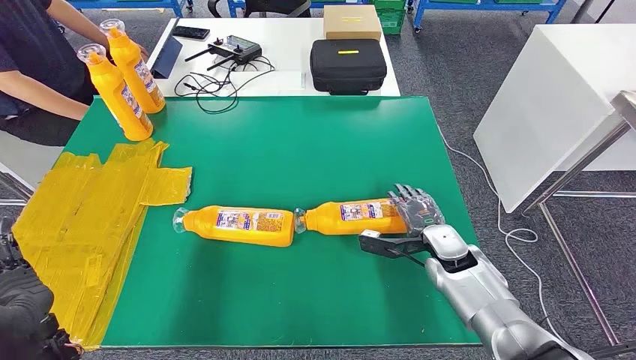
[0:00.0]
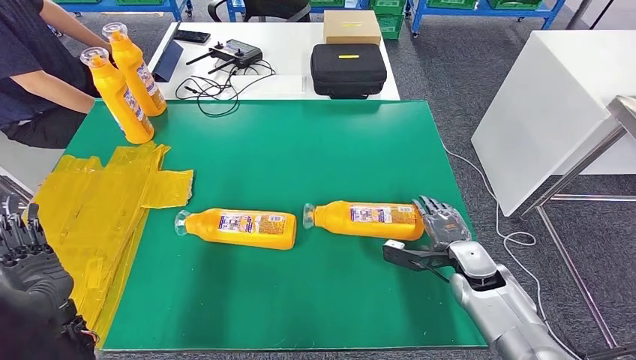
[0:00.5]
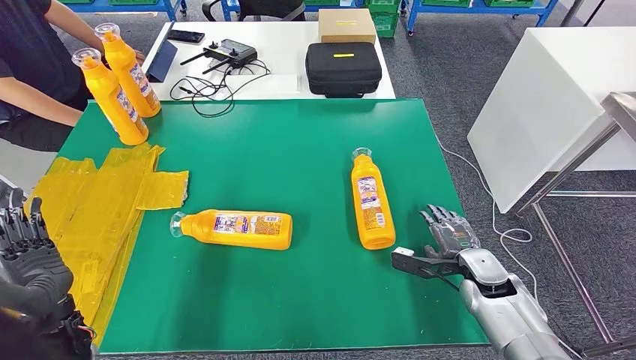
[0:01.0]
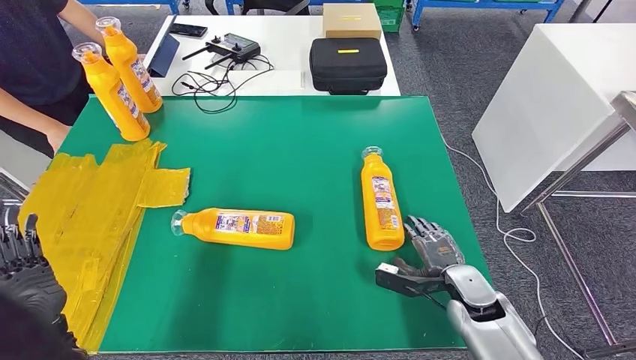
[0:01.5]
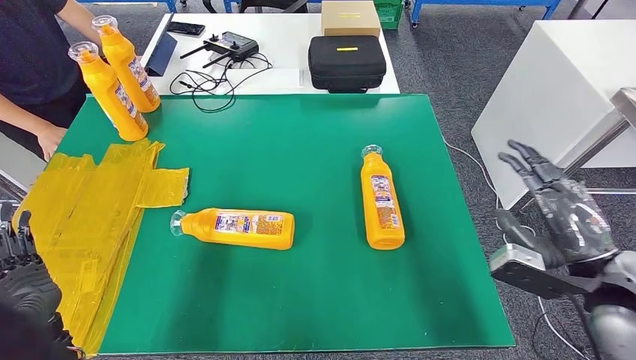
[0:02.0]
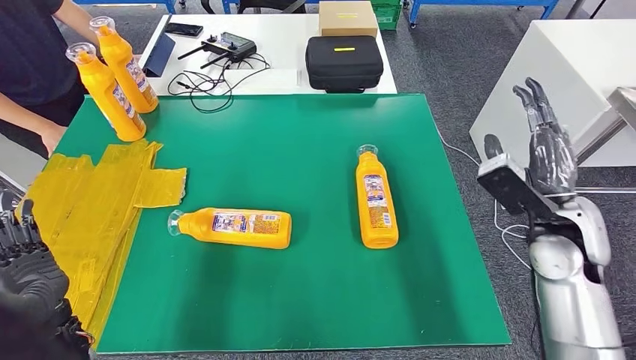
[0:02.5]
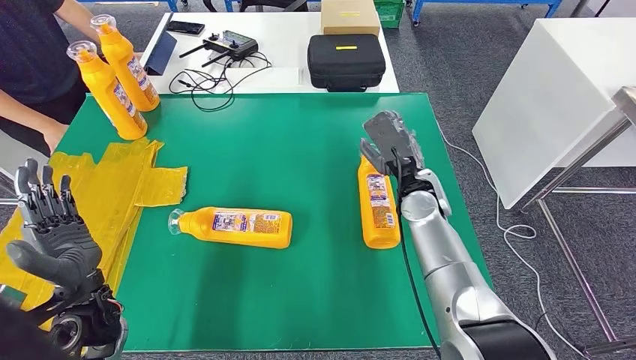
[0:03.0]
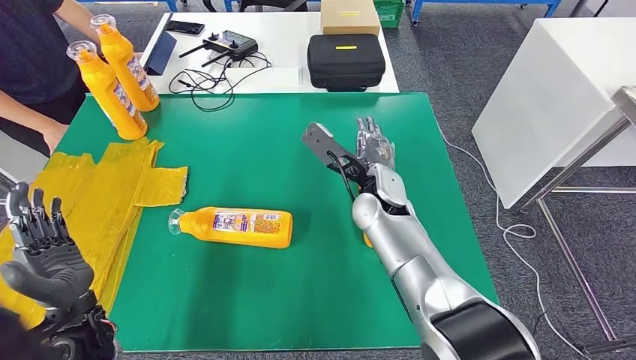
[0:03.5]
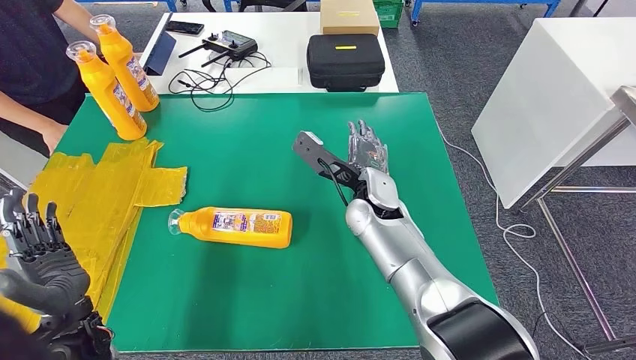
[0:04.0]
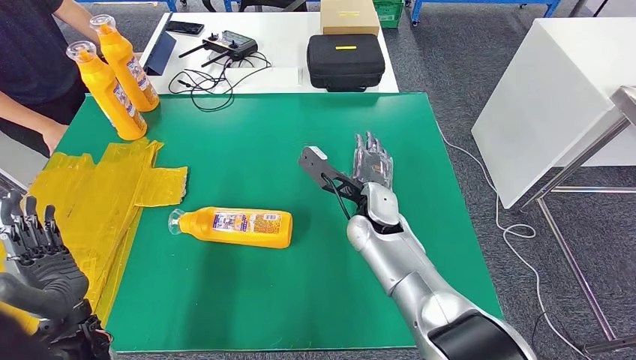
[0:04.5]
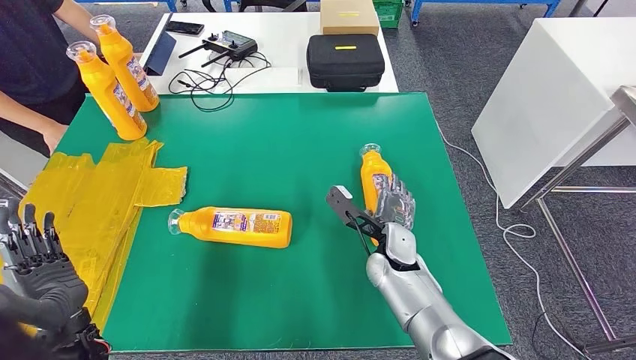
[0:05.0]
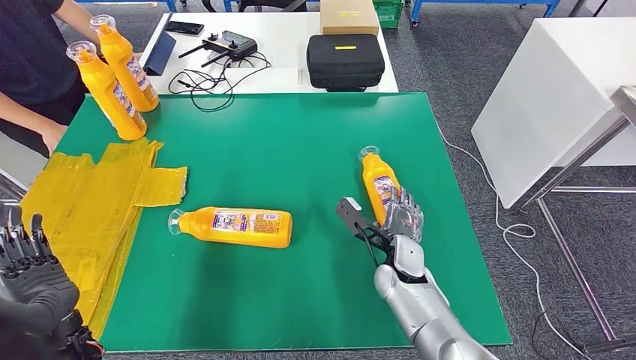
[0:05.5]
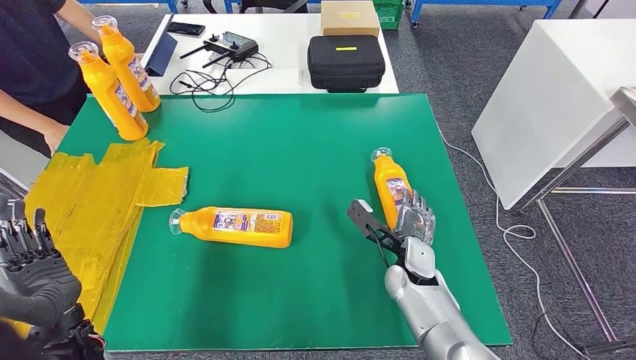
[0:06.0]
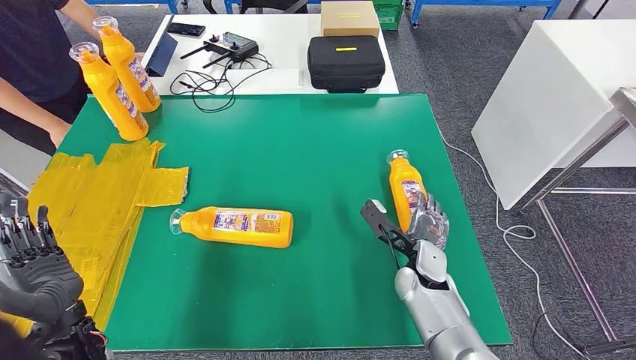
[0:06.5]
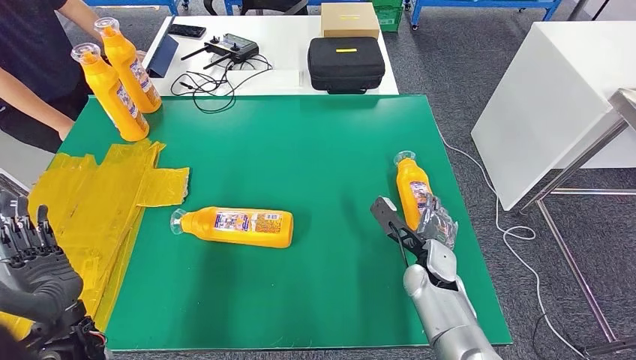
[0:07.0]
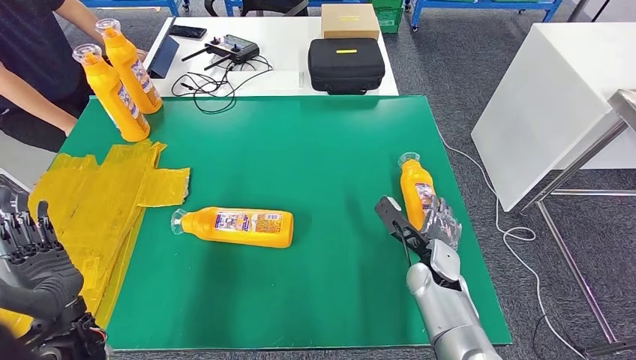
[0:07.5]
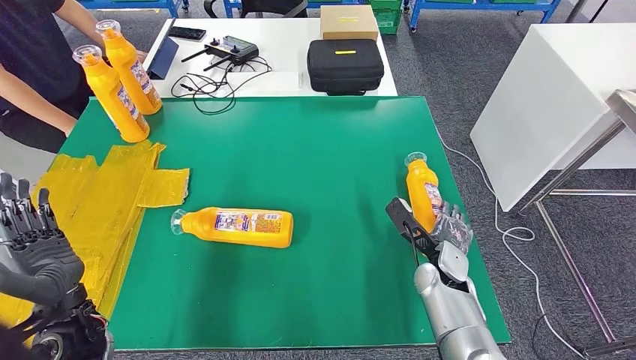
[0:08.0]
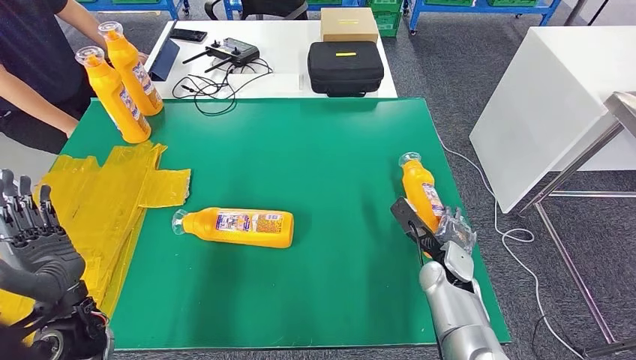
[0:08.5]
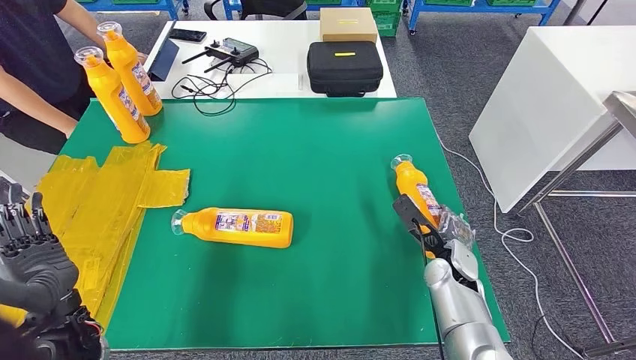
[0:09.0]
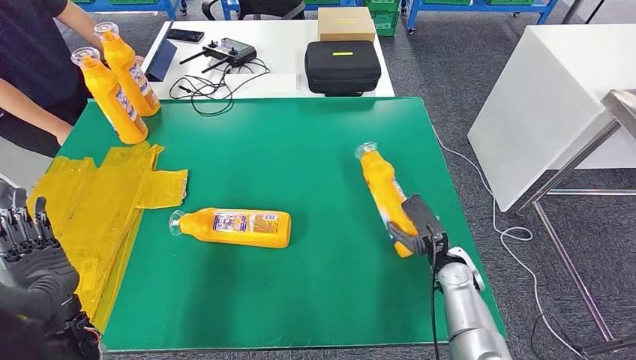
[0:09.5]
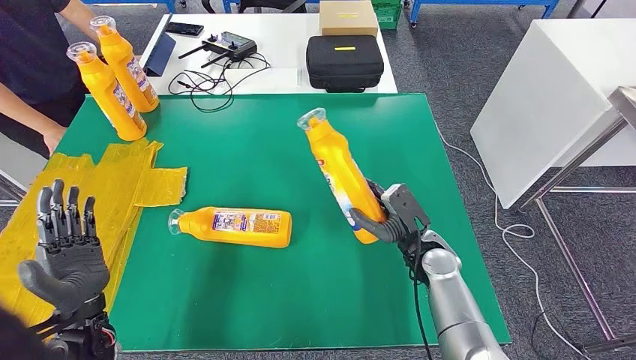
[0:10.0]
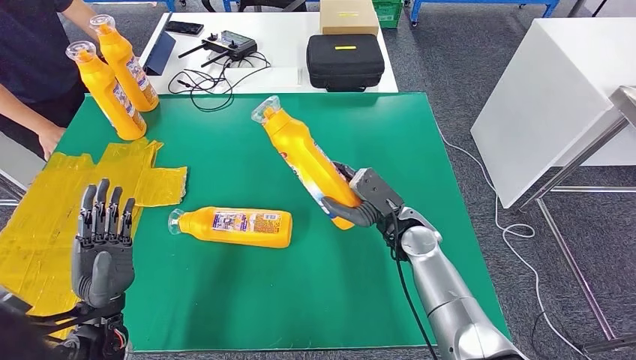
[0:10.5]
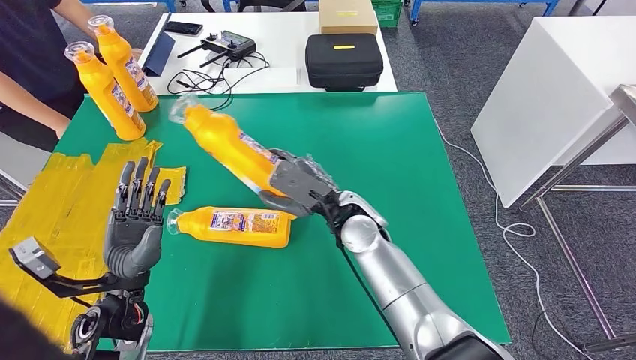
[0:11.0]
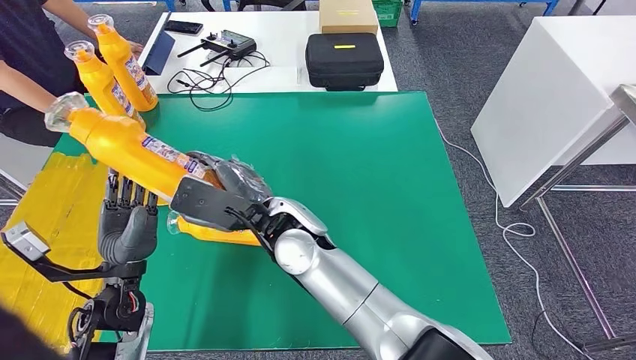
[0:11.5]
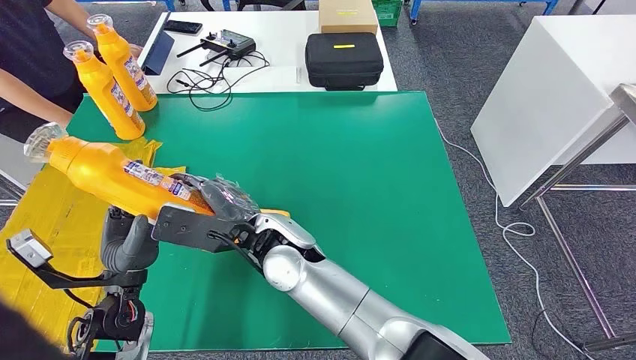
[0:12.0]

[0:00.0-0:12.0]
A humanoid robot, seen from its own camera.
Step, 0:07.5 to 0:10.5: Pick up the bottle from the table.
0:04.0 to 0:06.0: The right hand heads downward, backward and to the right, covering roughly 20 cm.

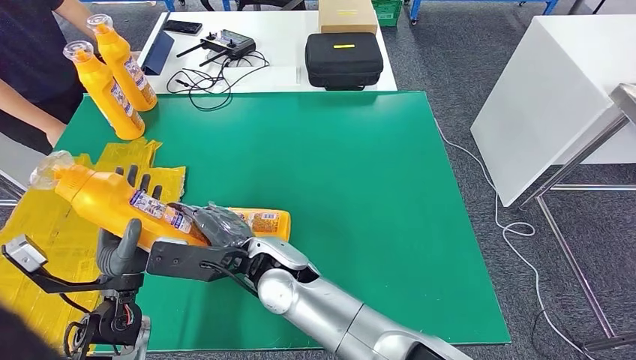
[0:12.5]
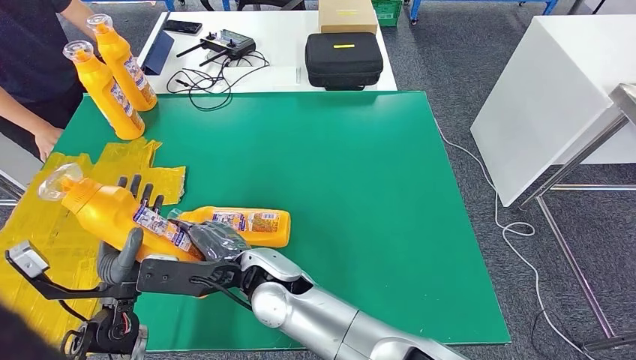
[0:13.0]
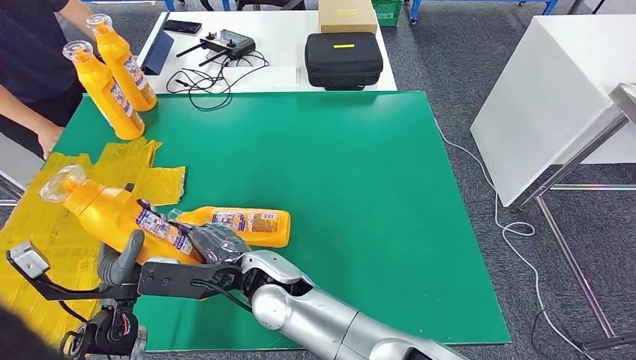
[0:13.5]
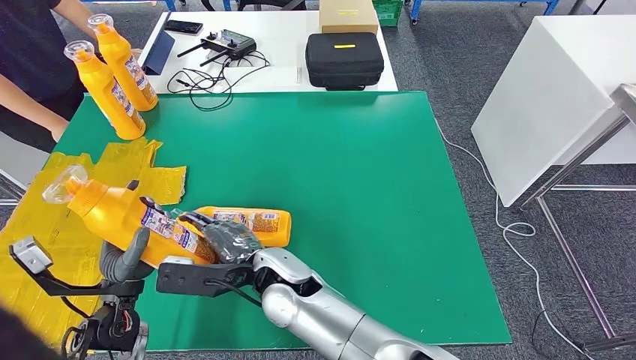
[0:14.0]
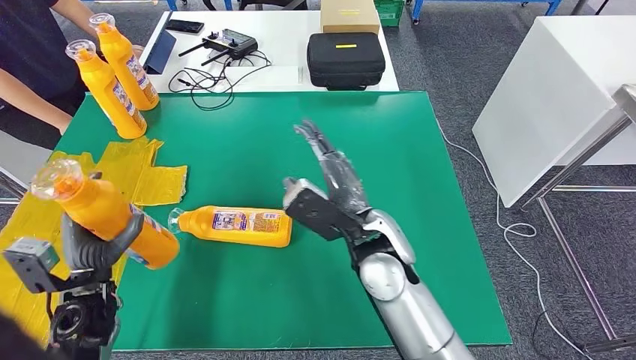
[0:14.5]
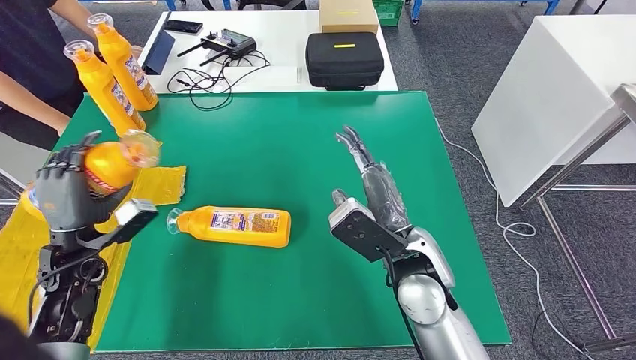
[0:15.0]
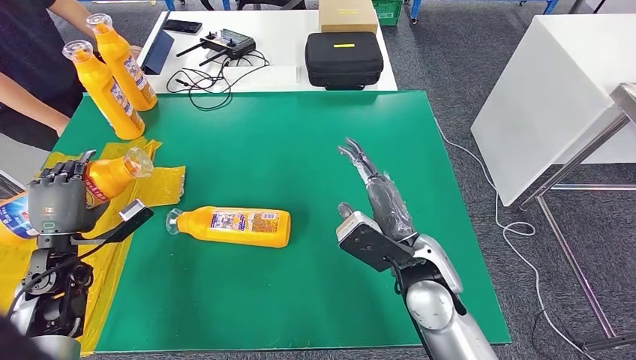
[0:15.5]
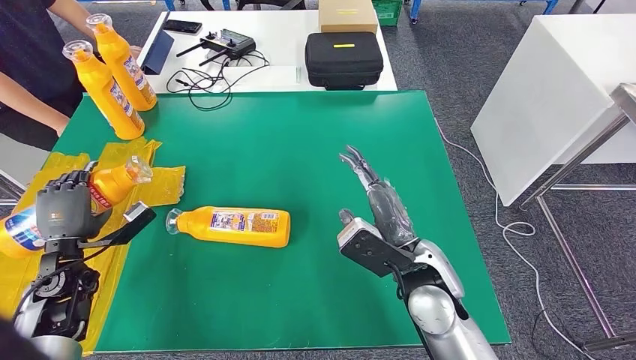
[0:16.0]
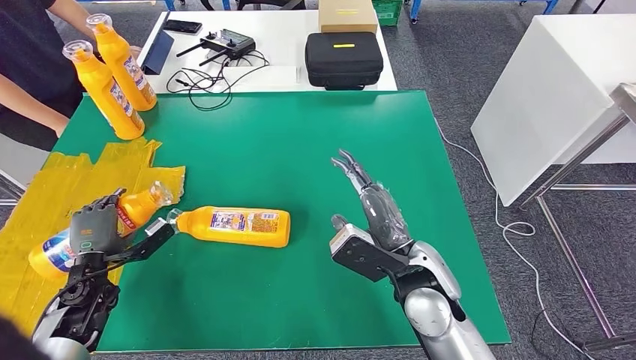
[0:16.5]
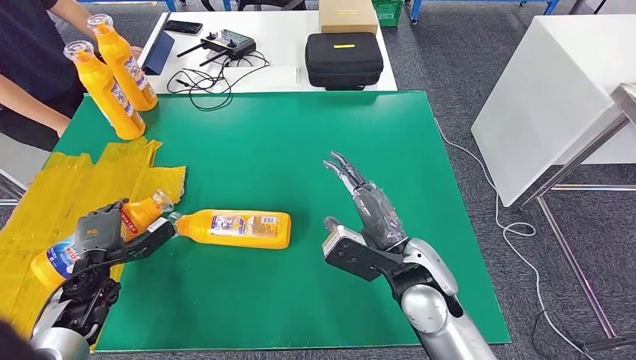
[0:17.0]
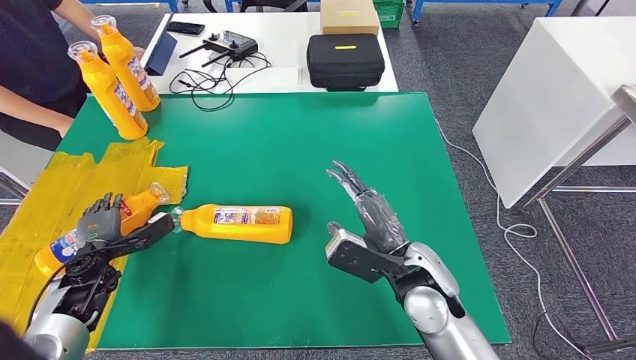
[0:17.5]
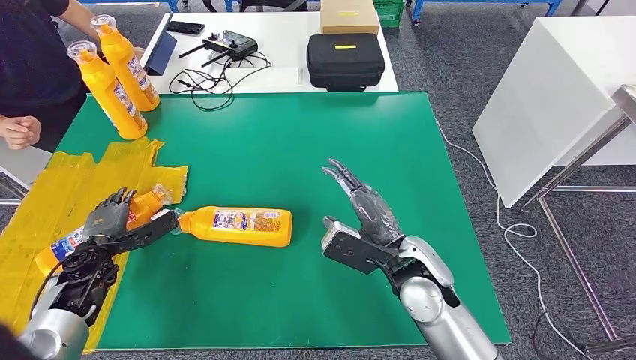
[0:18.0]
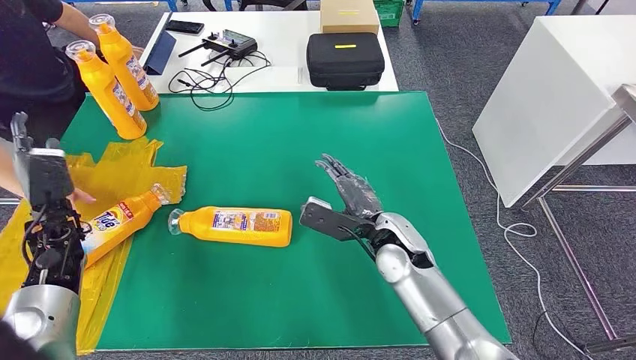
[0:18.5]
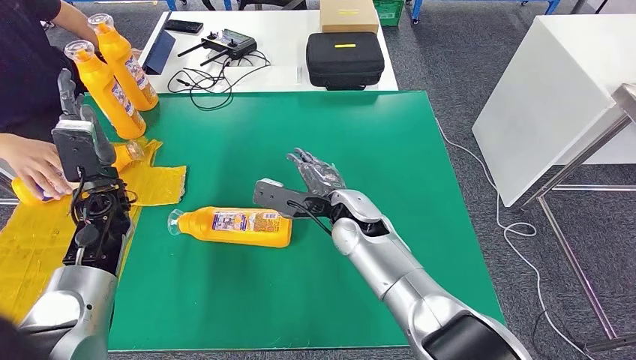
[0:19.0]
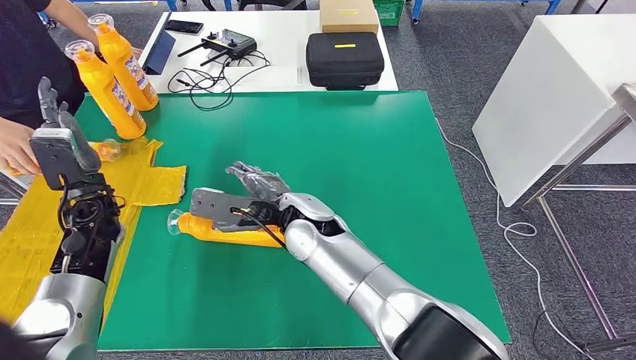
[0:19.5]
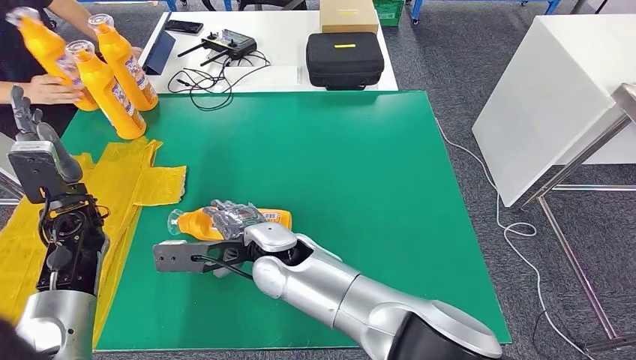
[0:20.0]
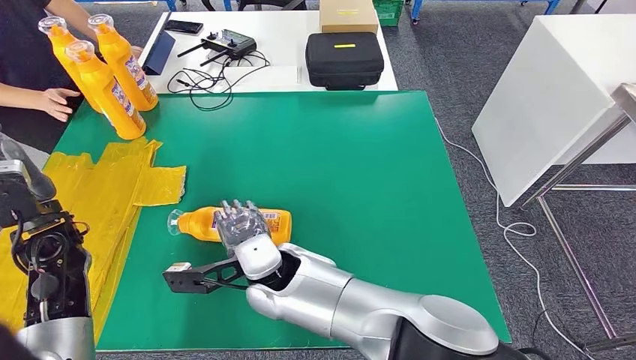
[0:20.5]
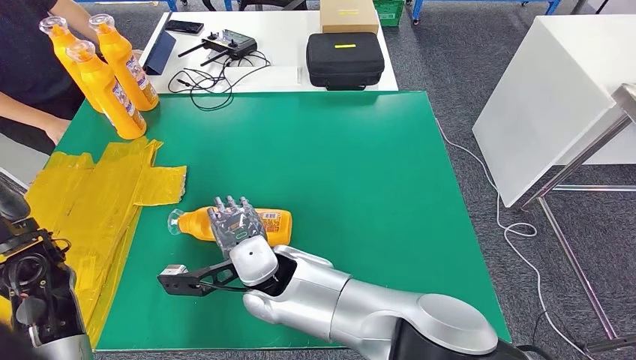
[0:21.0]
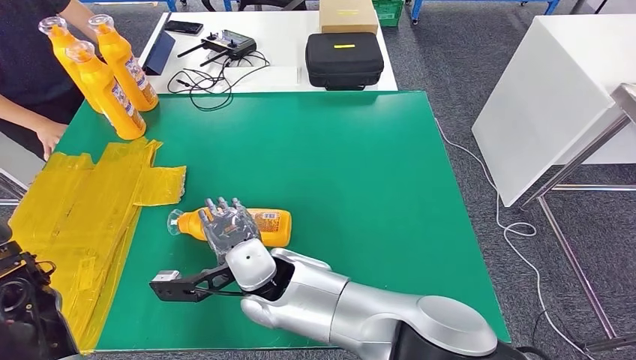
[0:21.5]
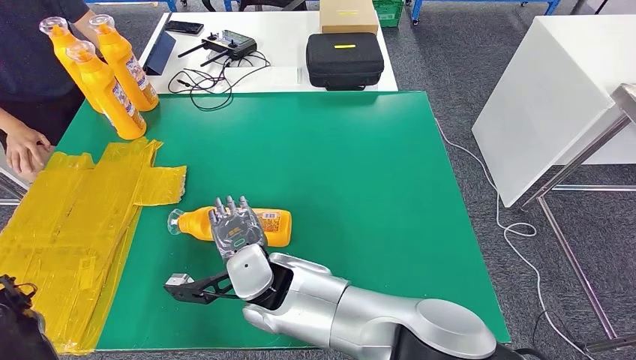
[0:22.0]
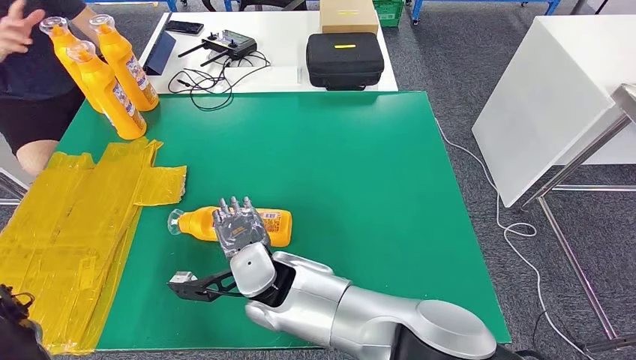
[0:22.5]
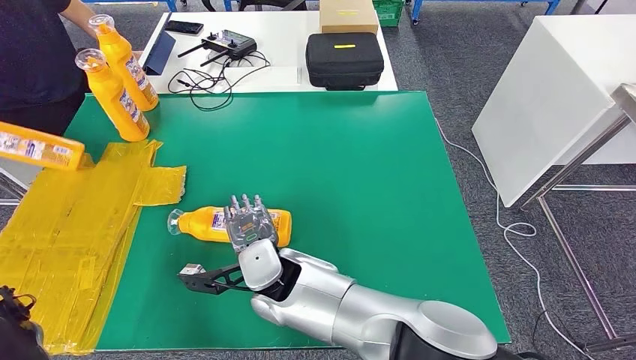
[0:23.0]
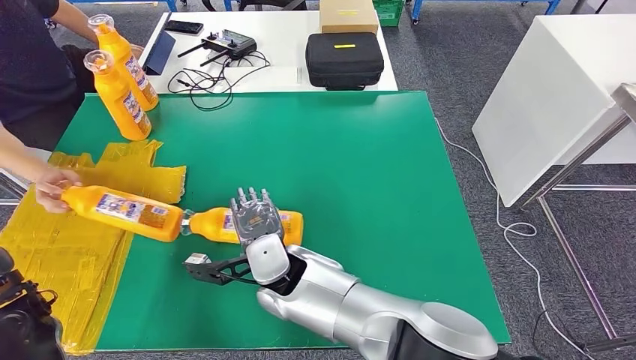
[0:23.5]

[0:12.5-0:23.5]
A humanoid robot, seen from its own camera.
Step, 0:12.5 to 0:18.5: Flip the bottle to face forward.
0:20.0 to 0:21.5: The left hand moves backward, about 10 cm.
0:21.5 to 0:23.5: The hands make only small movements.
